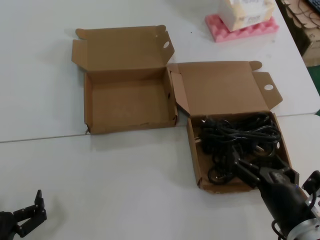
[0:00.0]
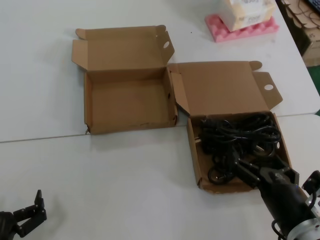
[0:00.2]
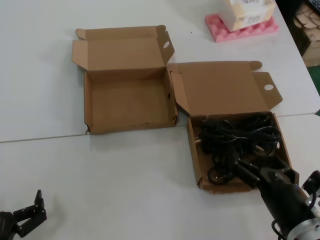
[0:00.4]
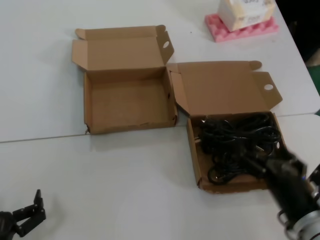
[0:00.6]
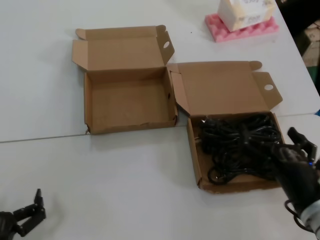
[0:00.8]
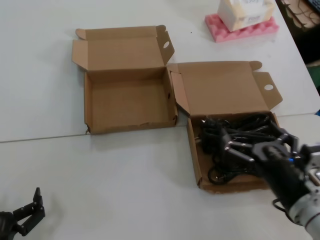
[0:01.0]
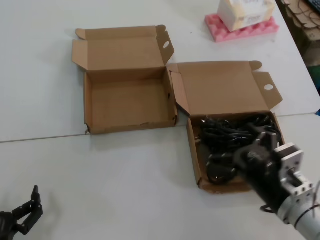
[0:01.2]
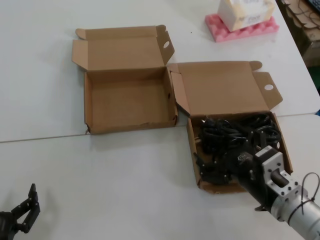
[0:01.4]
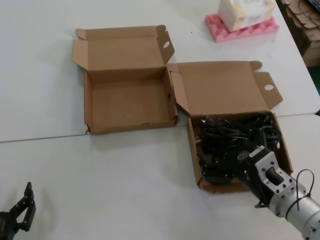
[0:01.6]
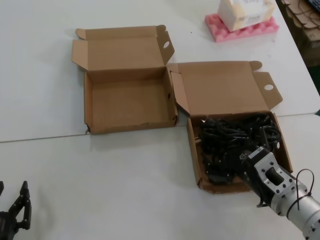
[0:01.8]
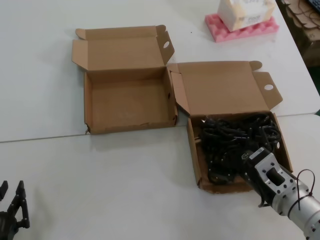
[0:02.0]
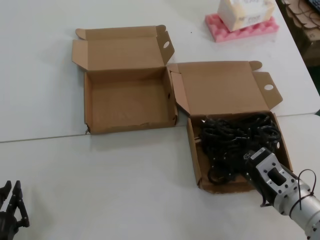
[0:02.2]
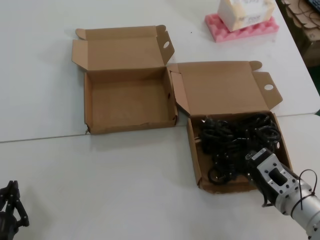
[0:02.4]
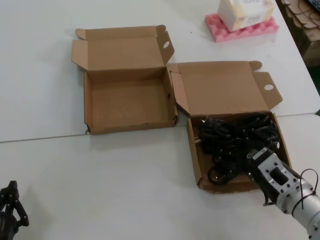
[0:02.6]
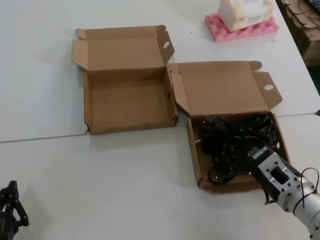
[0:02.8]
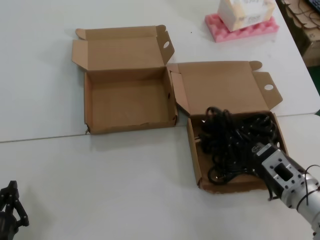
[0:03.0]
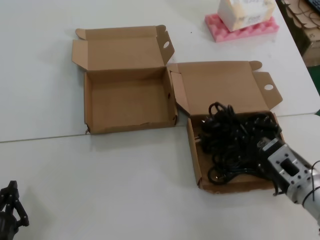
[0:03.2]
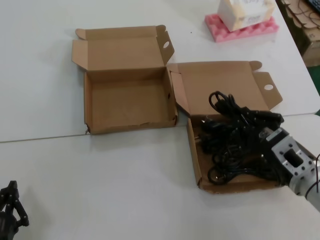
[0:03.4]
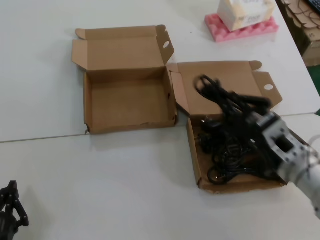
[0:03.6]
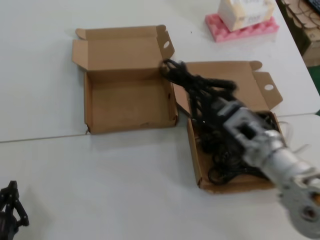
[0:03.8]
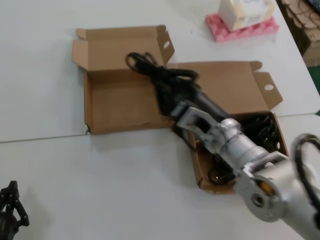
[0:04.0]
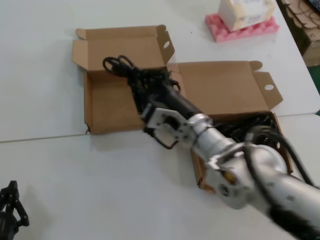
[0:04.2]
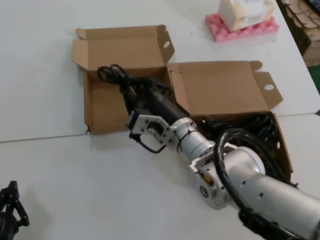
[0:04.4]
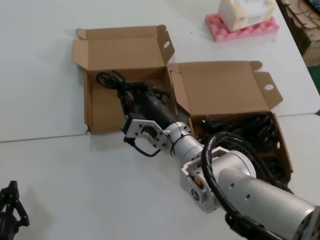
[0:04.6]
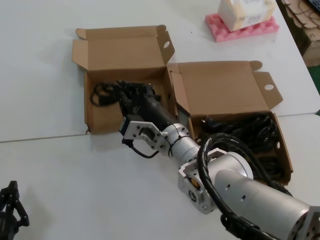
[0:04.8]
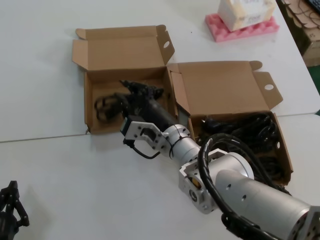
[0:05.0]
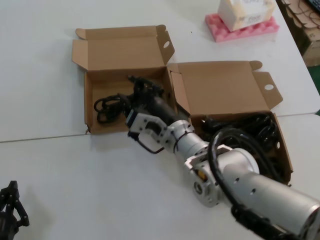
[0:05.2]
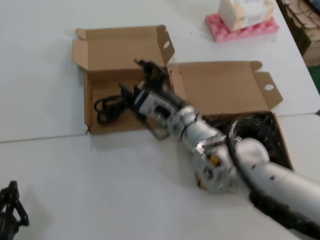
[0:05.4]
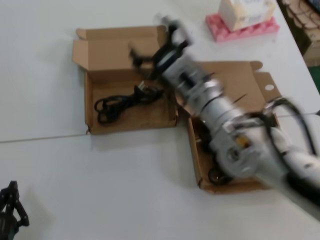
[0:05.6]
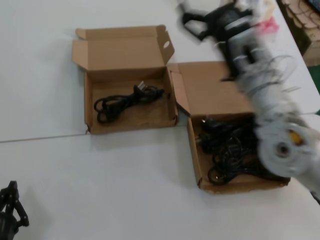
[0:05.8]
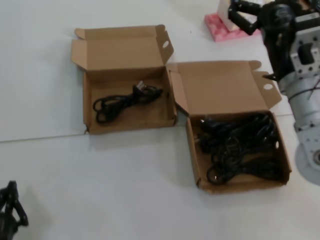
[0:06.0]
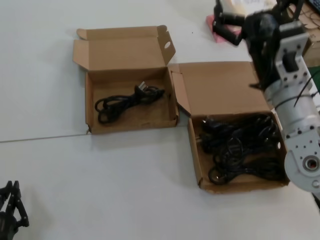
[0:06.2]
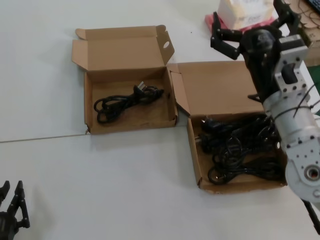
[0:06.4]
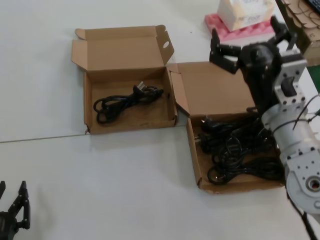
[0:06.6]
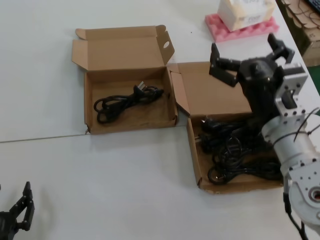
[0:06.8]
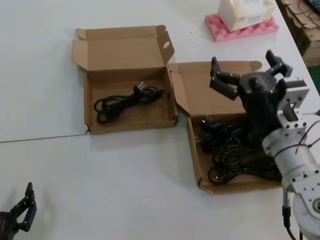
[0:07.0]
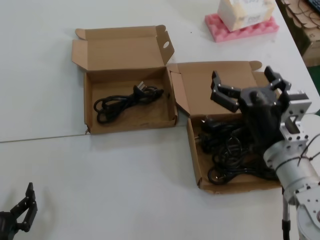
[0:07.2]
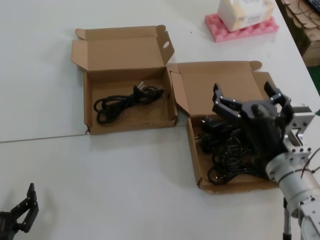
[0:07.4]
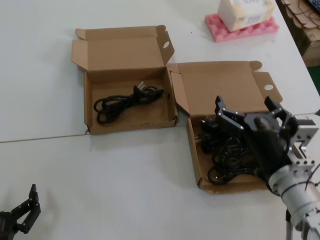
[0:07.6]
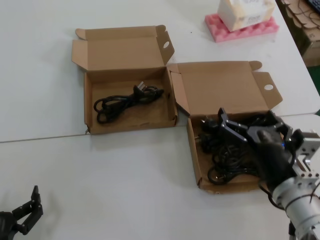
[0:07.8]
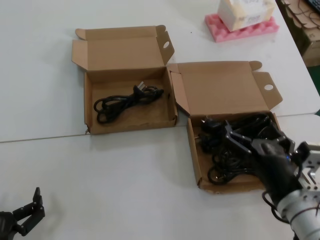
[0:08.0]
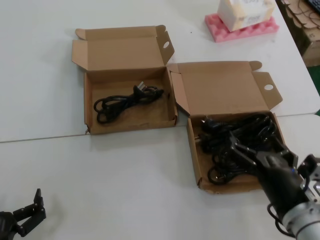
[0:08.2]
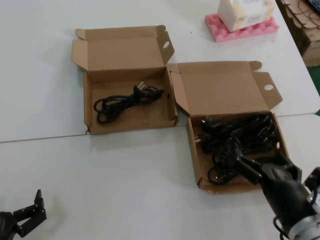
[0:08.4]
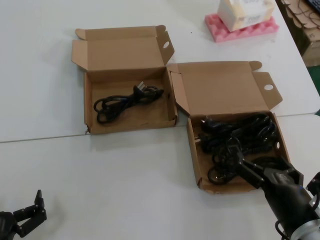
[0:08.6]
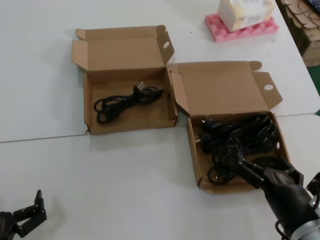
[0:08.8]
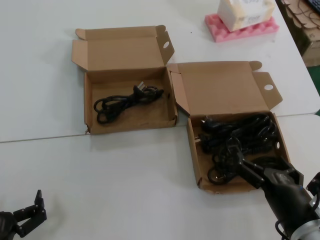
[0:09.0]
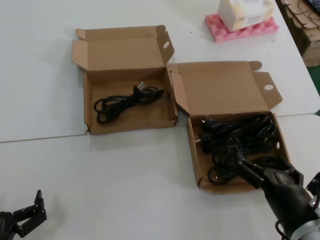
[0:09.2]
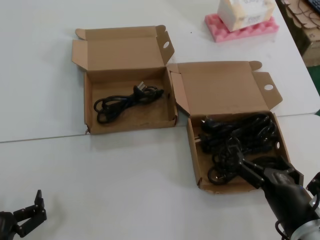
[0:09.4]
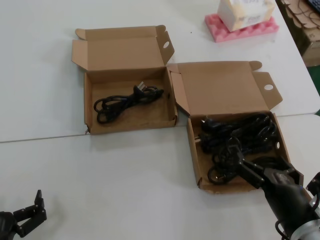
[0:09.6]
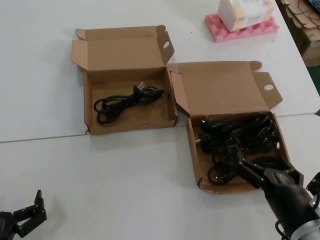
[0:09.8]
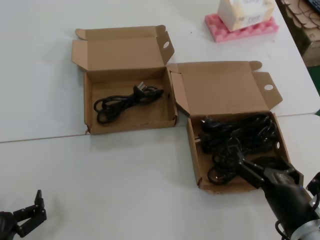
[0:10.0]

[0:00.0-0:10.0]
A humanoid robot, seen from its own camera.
Task of the whole recording: Pick up the power cord from the box containing it and place it in another box.
Step, 0:00.0 to 0:03.0: Grasp the data cable.
Step, 0:03.2 to 0:05.2: Place the data cable in the another box.
0:00.0 to 0:01.4: The right hand moves roughly 5 cm.
0:01.4 to 0:02.8: The hands move only a little.
0:02.8 to 0:04.2: The right hand is displaced to the left, forward and upward by approximately 20 cm.
0:04.2 to 0:05.8: The right hand goes roughly 10 cm upward and to the right.
0:05.8 to 0:07.2: The right hand shifts roughly 10 cm downward and backward.
0:07.2 to 0:08.6: The right hand is displaced downward and backward by some 15 cm.
0:08.6 to 0:10.0: Neither hand changes place.
